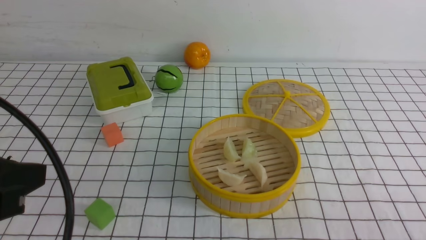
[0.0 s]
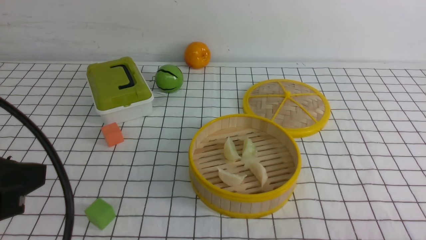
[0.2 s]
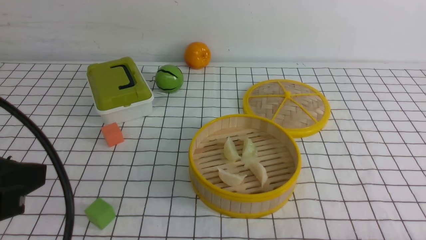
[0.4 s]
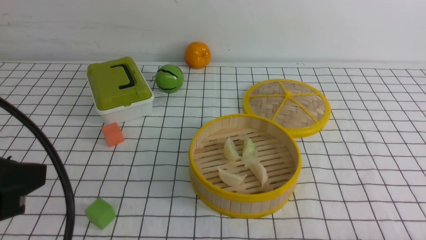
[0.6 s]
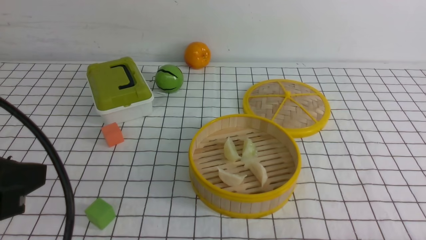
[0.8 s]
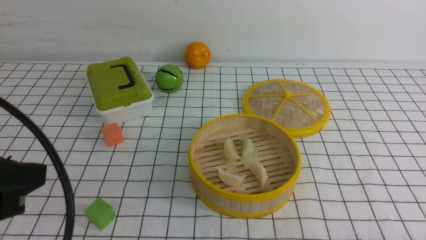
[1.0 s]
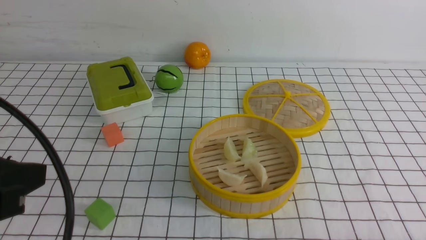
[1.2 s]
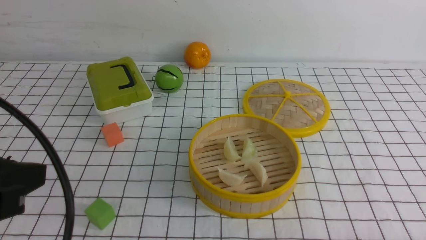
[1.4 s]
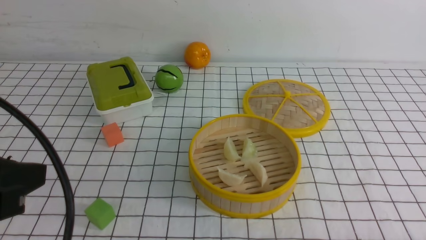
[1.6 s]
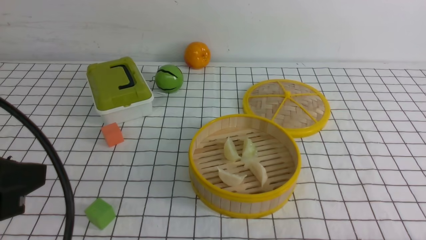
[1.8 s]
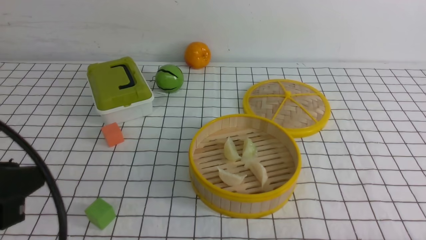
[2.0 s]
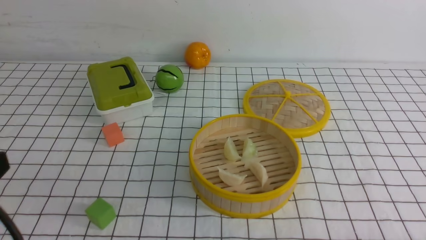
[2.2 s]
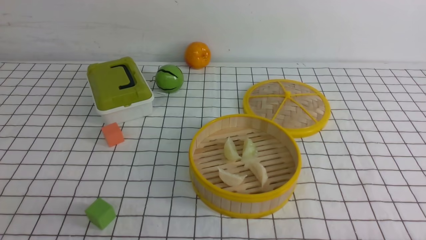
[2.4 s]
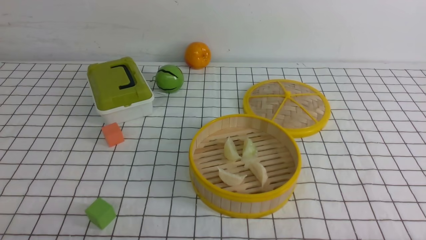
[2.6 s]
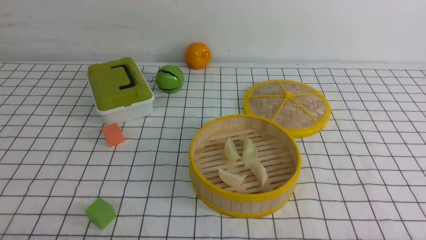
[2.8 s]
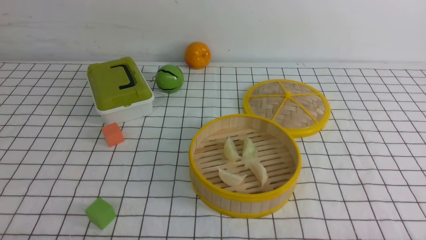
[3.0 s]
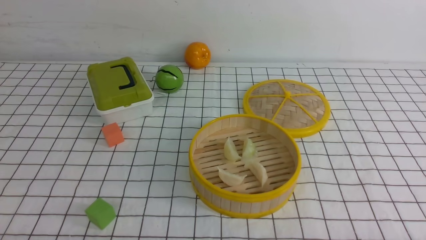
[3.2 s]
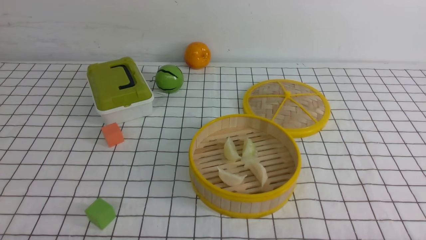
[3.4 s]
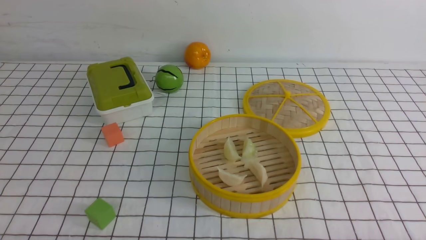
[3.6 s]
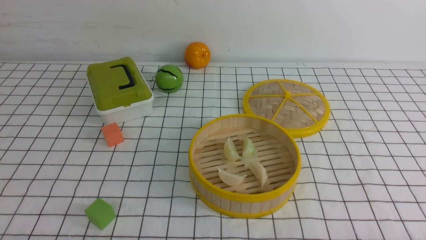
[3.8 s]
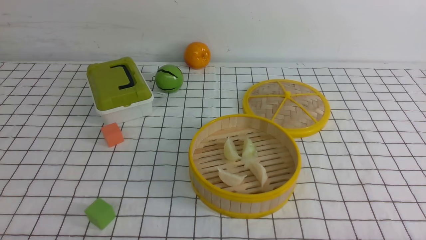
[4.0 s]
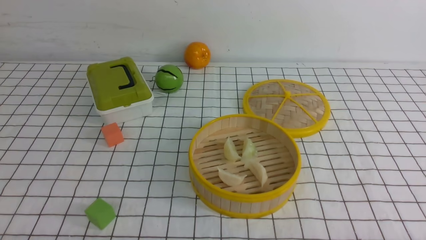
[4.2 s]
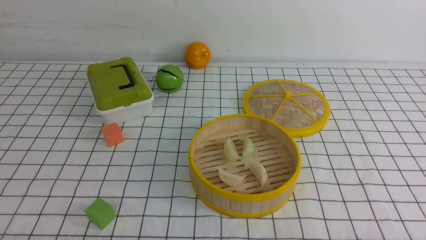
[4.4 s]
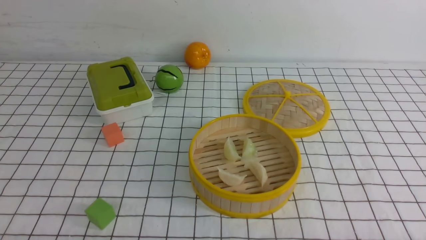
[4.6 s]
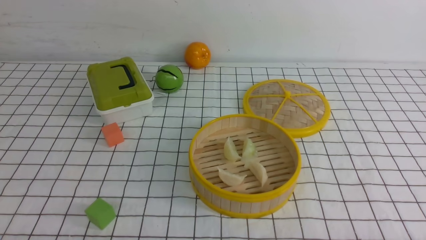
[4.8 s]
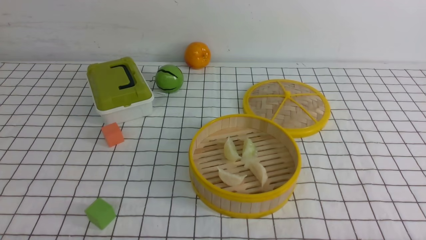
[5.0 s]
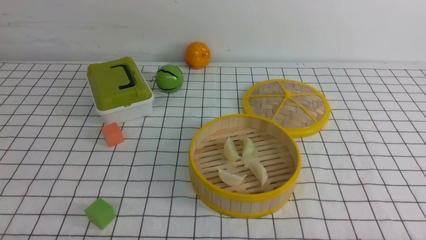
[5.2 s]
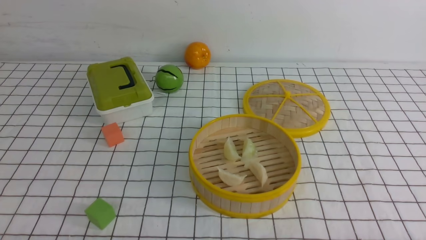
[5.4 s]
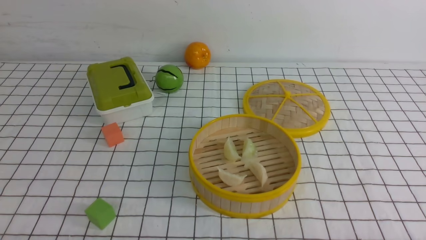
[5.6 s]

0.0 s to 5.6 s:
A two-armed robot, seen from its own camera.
Task of the whole recording: put the dumplings into the steamer on the table with the white tablecloth.
1.4 to 2.8 s: The left gripper is displaced downward by approximately 15 cm, and closes.
4.2 to 5.6 s: The two grippers keep their place.
